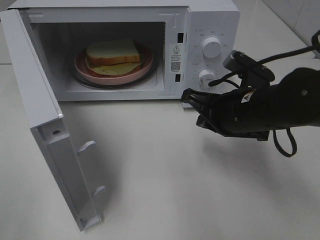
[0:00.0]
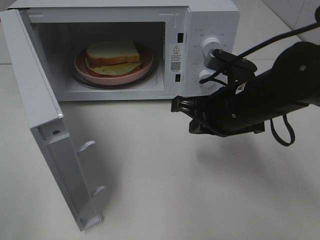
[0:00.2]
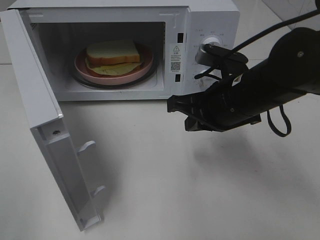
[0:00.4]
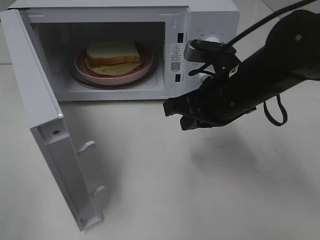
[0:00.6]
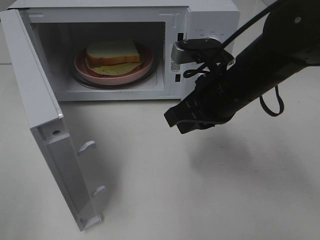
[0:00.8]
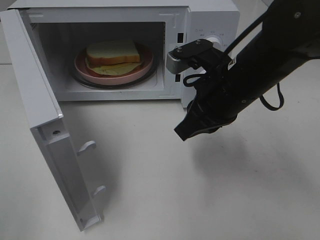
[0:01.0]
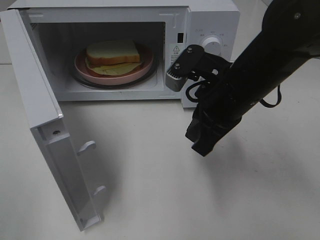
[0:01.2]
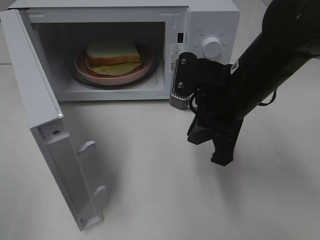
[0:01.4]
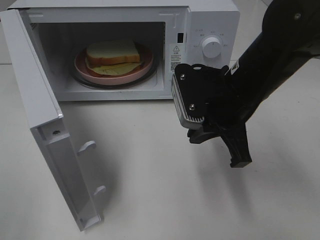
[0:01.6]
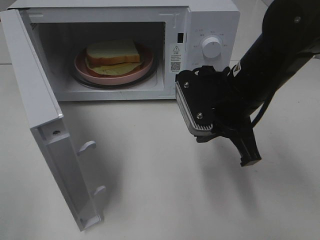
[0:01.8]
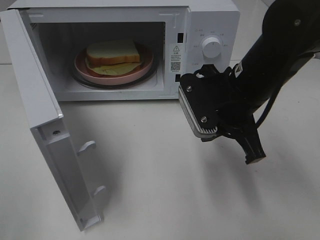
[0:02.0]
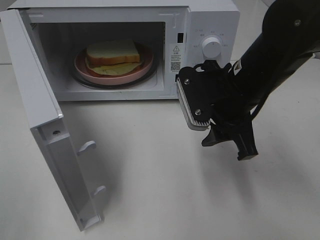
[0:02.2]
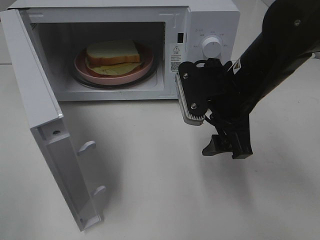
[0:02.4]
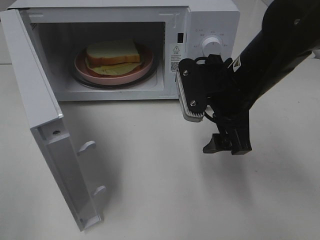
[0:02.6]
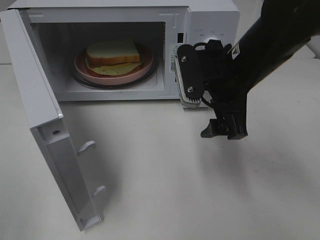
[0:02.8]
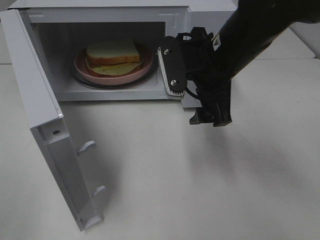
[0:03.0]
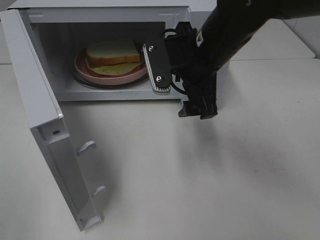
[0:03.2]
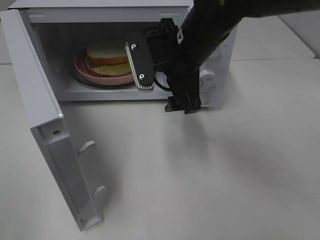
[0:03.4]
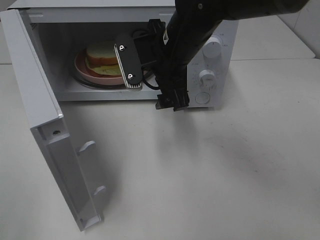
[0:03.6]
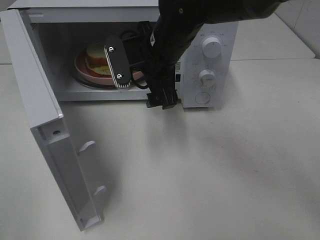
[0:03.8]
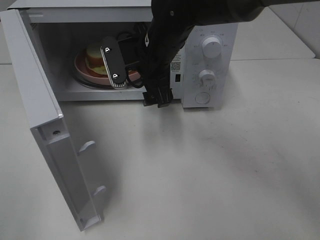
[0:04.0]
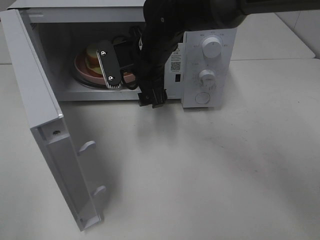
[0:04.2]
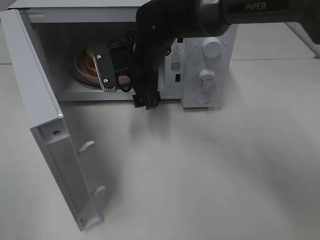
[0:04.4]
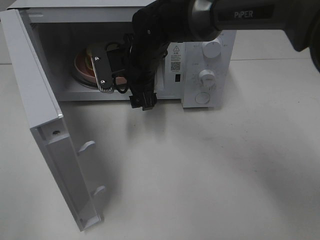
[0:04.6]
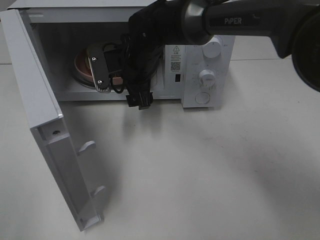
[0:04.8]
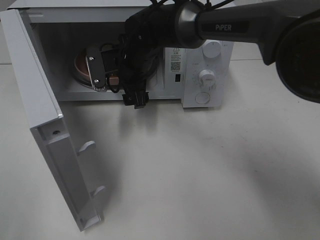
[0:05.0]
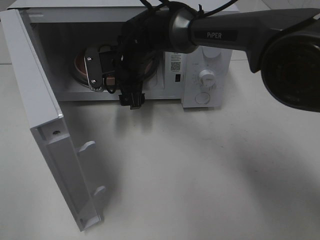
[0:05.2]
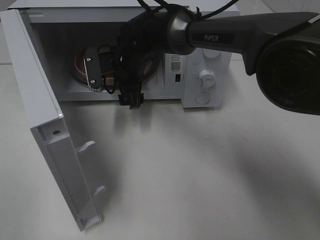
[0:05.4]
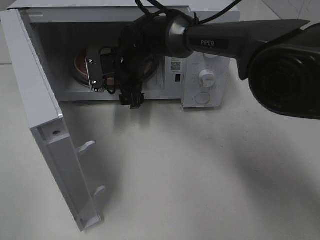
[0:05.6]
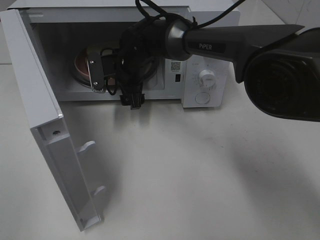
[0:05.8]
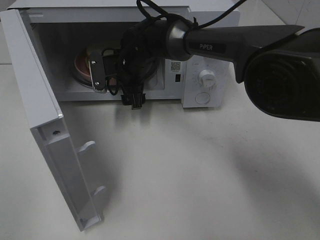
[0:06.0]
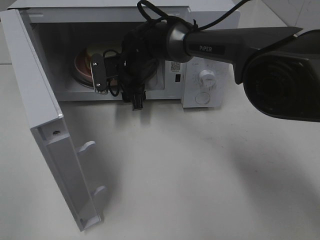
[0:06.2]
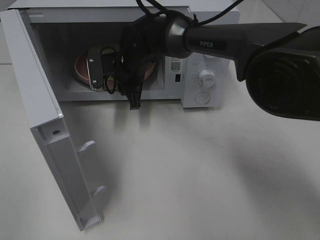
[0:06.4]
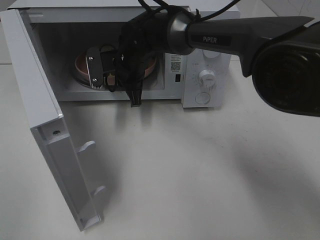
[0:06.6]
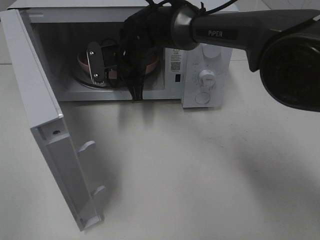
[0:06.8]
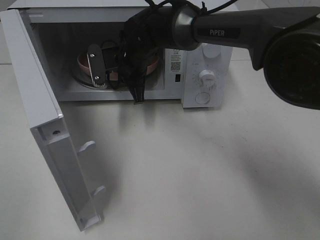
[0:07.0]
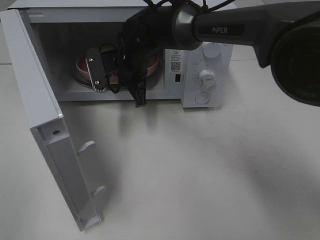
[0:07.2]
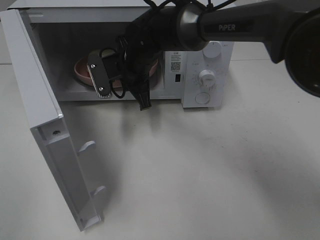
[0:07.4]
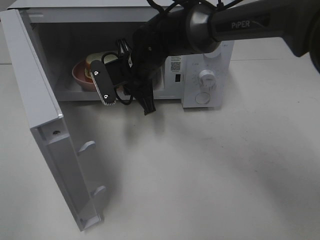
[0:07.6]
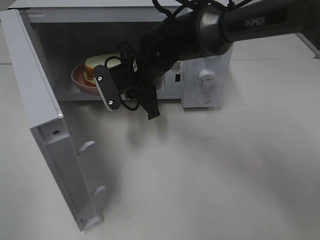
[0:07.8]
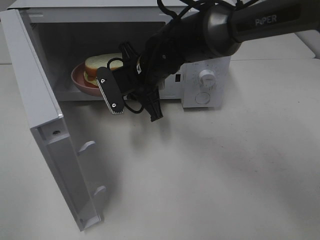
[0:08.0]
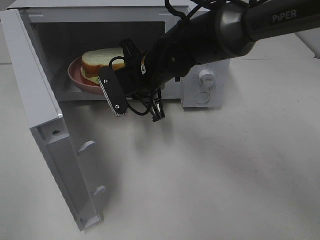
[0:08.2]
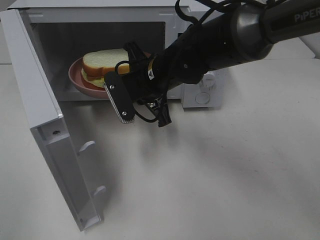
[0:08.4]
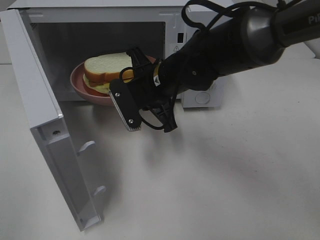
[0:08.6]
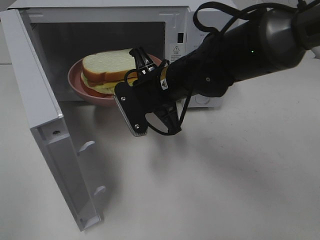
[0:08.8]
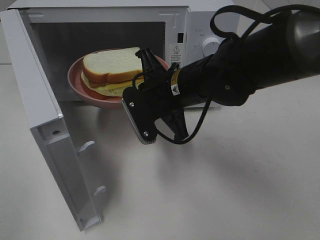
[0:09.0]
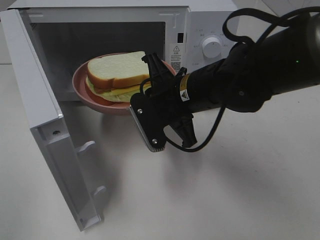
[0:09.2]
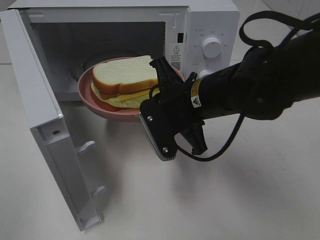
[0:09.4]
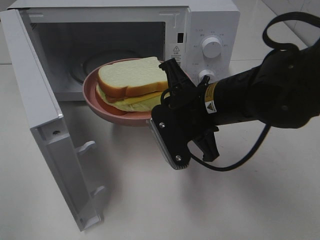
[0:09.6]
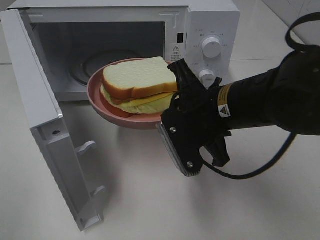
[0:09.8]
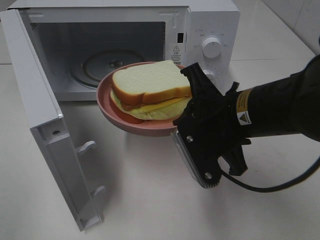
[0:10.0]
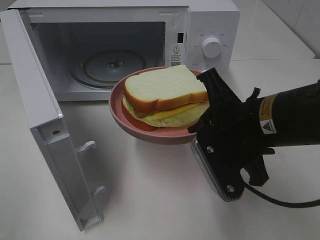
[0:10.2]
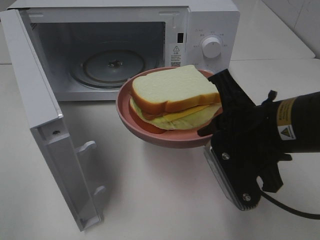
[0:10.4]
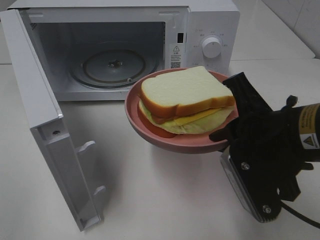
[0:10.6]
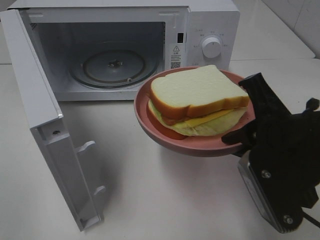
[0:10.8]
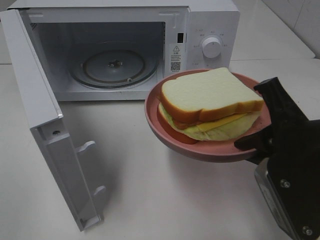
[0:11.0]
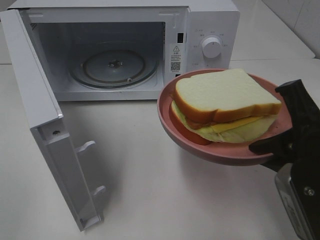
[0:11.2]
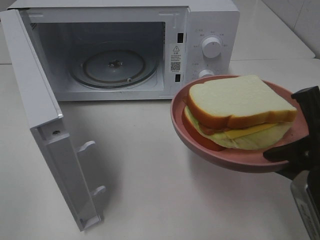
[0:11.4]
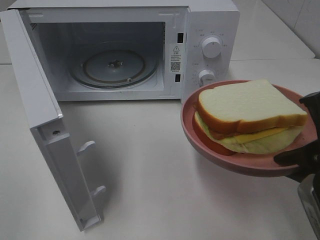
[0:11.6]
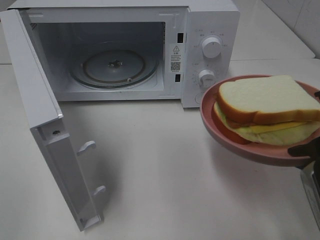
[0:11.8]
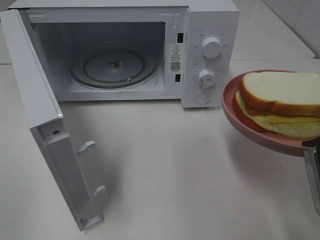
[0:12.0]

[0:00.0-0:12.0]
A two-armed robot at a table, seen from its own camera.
Task of the whole recording: Heat Sandwich.
Step, 0:00.0 to 0:06.8: Right hand: grab the plate with the sandwich.
0:01.6 to 0:03.0: The right gripper ends up approximately 5 cm from where it was, and opens up.
0:03.0 to 0:04.4: The right gripper goes approximately 15 cm to the left, forward and downward.
0:04.4 to 0:06.0: The right gripper is displaced forward by some 5 cm.
0:06.0 to 0:07.6: The right gripper shifts approximately 5 cm backward, and closes.
0:07.6 to 0:09.0: The right gripper moves backward and to the right, approximately 10 cm.
0:09.0 to 0:10.4: The right gripper moves backward and to the right, approximately 15 cm.
0:10.4 to 0:12.0: The right gripper heads to the right and backward, covering roughly 10 cm.

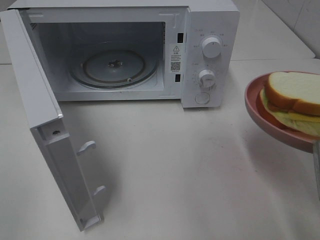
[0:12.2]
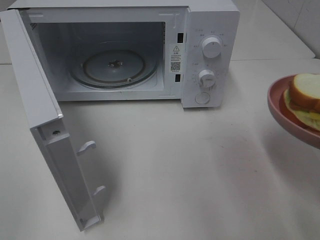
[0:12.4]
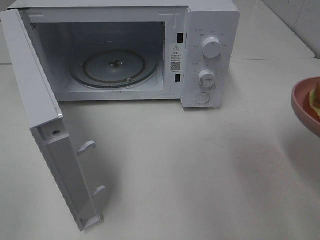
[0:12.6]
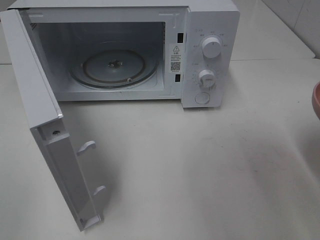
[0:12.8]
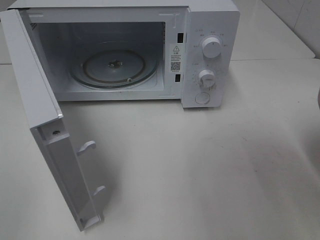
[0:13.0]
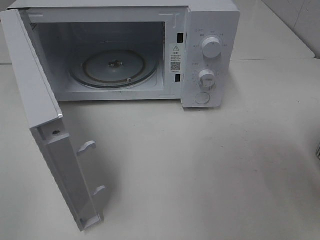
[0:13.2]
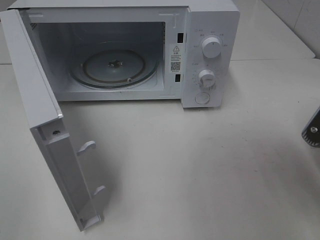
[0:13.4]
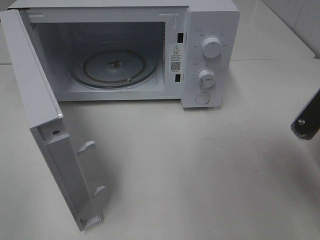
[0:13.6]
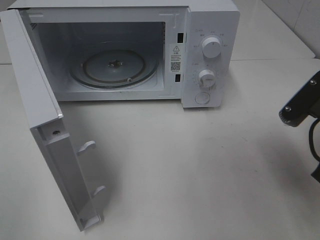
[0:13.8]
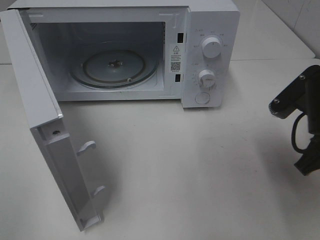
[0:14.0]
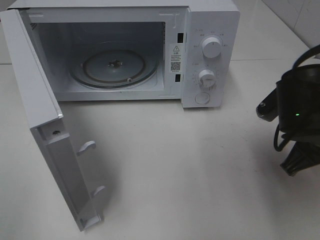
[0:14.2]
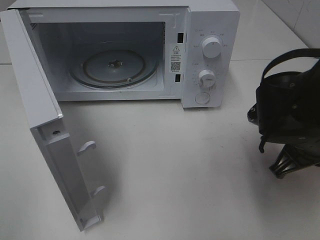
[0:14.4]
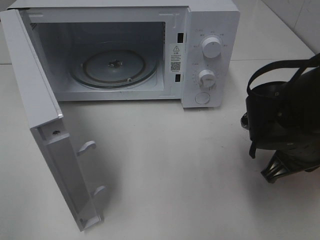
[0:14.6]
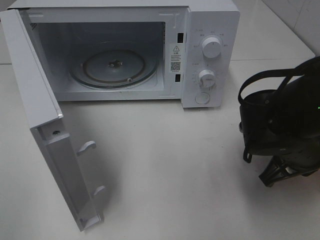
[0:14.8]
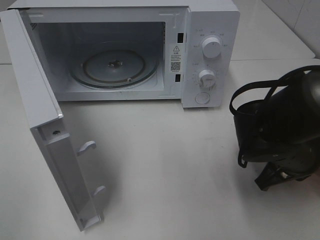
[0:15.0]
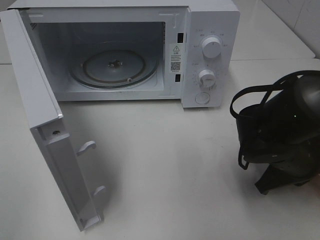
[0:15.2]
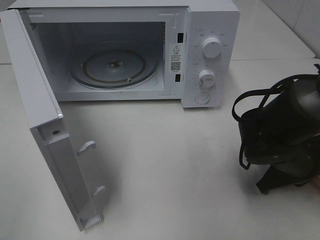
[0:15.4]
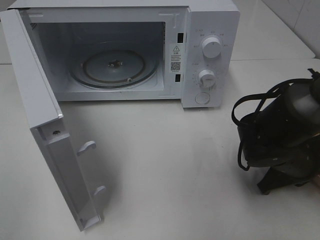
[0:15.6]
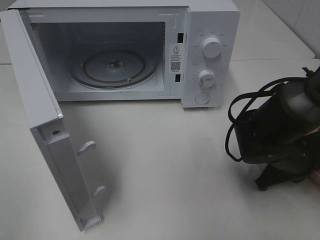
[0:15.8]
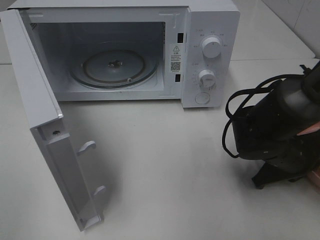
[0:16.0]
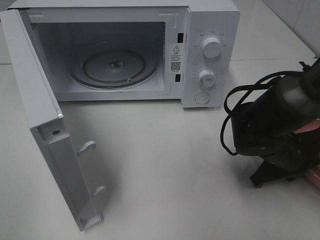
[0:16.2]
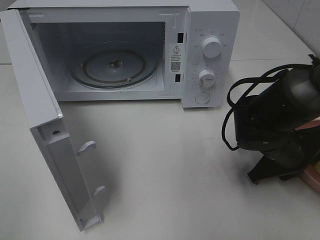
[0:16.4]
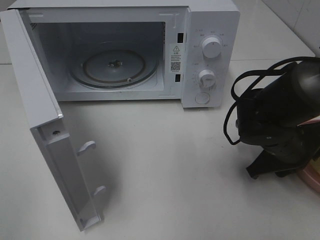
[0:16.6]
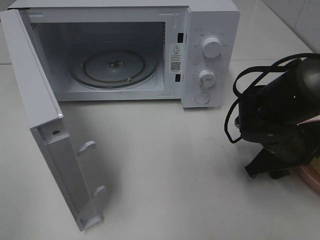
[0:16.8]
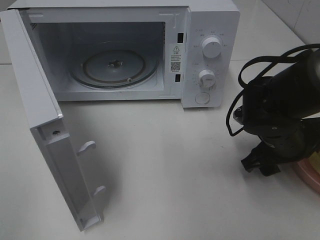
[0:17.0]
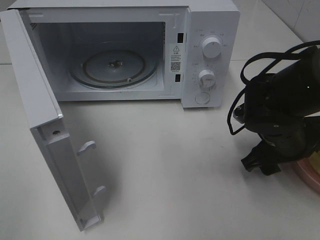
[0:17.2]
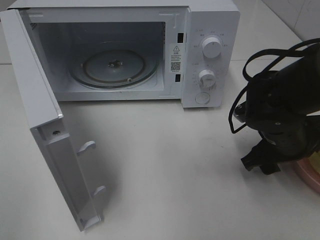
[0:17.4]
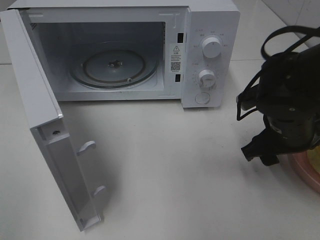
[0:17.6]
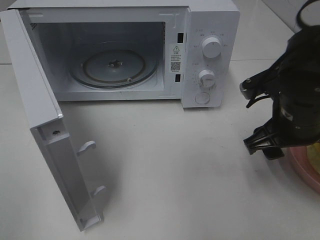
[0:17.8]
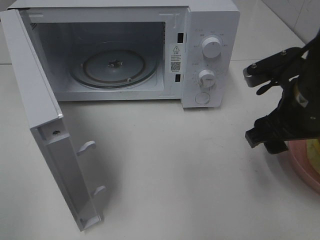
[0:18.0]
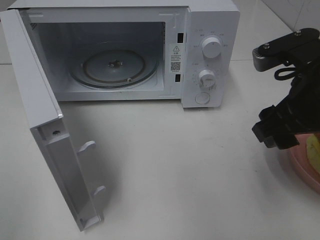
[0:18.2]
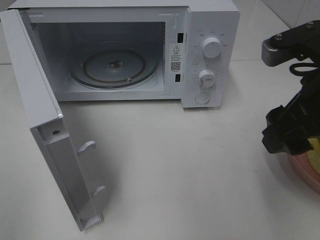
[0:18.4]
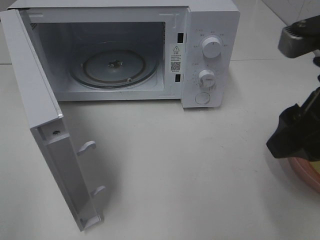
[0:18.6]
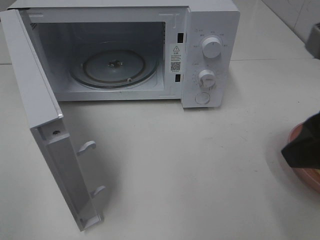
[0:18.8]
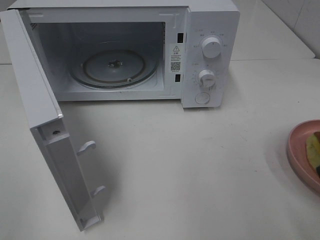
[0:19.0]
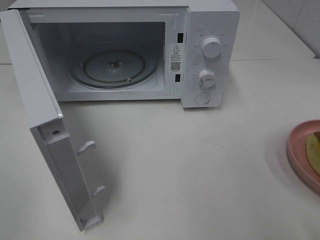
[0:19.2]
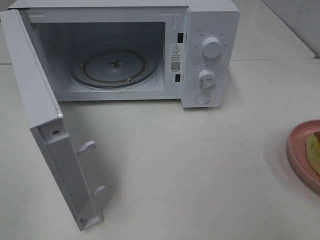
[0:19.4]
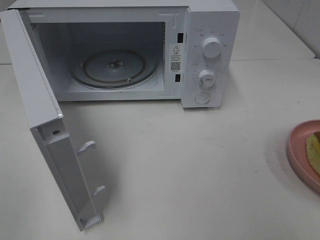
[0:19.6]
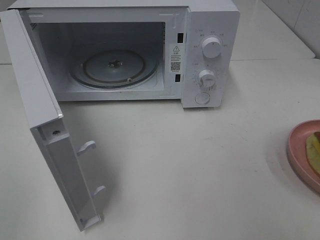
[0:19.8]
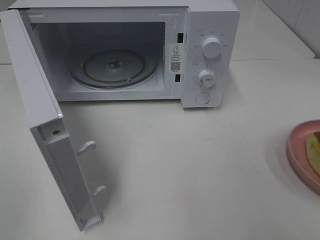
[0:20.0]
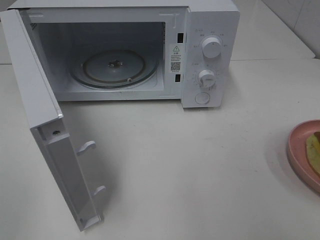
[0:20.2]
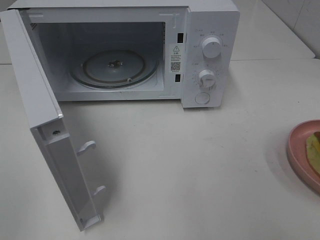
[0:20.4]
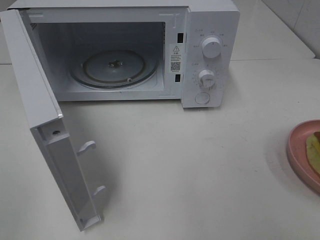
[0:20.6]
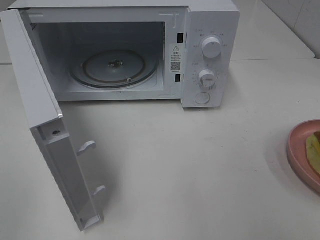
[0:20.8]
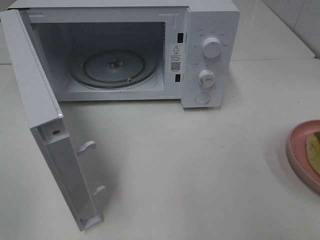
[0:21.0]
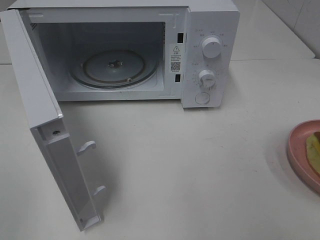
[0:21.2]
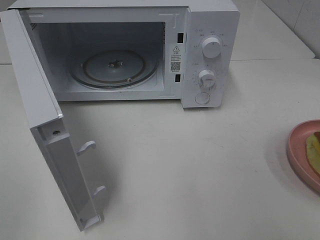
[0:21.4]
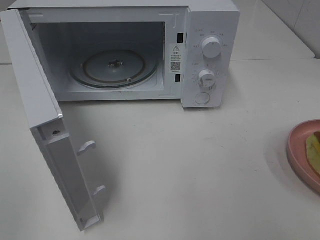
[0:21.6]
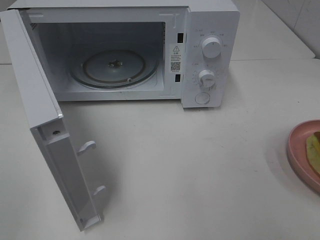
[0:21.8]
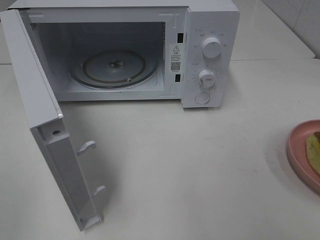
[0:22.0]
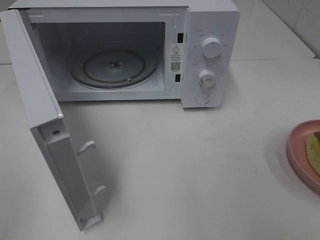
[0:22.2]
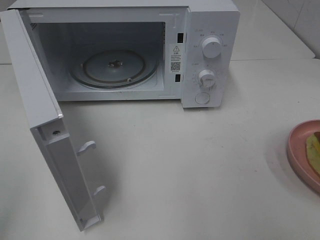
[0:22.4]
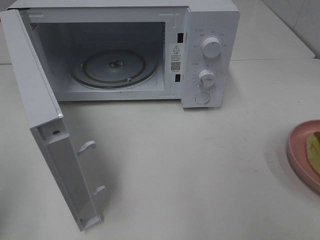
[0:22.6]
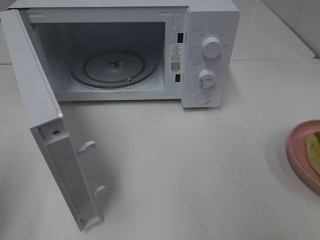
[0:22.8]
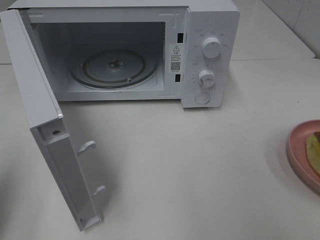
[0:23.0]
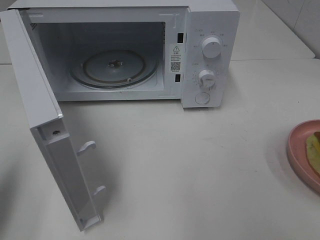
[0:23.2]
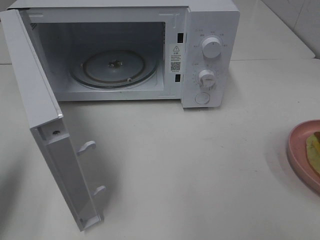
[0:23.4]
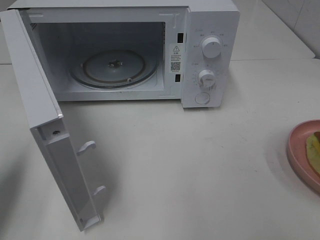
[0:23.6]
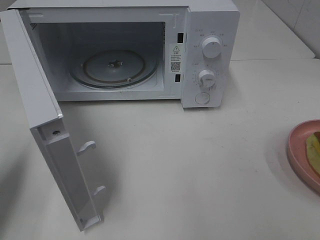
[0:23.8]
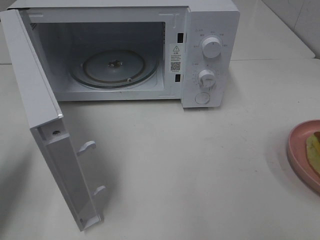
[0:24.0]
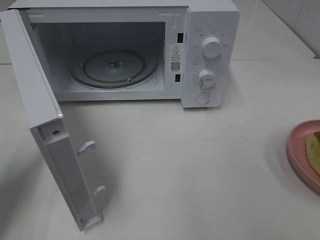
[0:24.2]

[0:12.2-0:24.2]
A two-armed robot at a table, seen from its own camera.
Task of the whole recording: Heat Sandwich.
Step, 0:12.2 to 0:17.8: Right hand: place the plate on the table.
0:12.2 to 0:13.8: The right gripper goes roughly 5 cm forward.
0:13.8 to 0:15.2: The right gripper heads downward and forward, covering about 10 cm.
0:15.2 to 0:16.6: There are only small adjustments of the grippers.
0:16.6 to 0:18.2: The right gripper heads upward, covering about 15 cm.
0:18.2 to 0:19.8: The right gripper moves backward and to the right, roughly 20 cm.
0:22.6 to 0:24.2: The left gripper goes roughly 20 cm forward and downward, and closes up.
